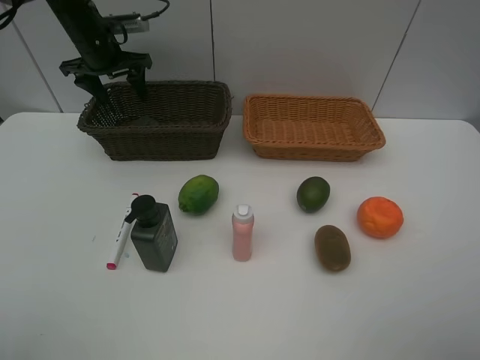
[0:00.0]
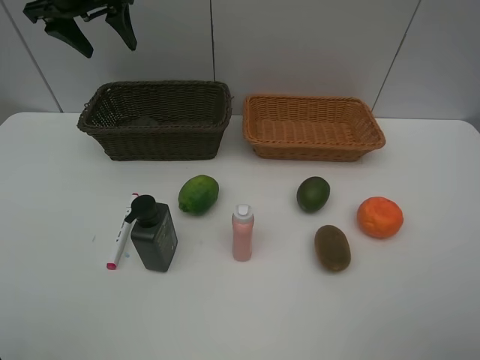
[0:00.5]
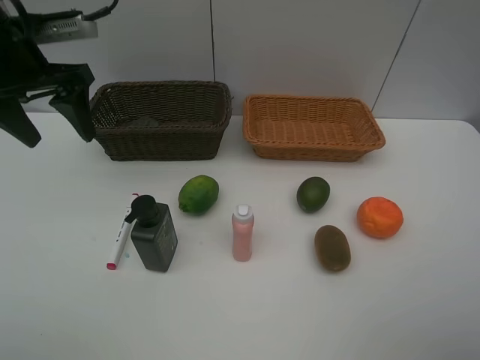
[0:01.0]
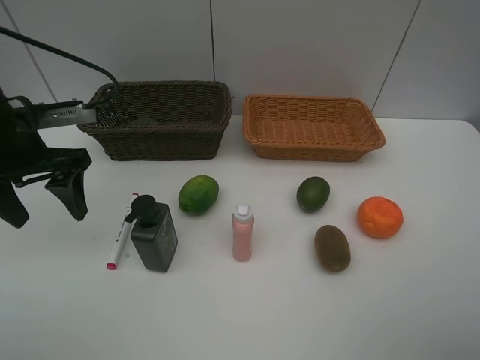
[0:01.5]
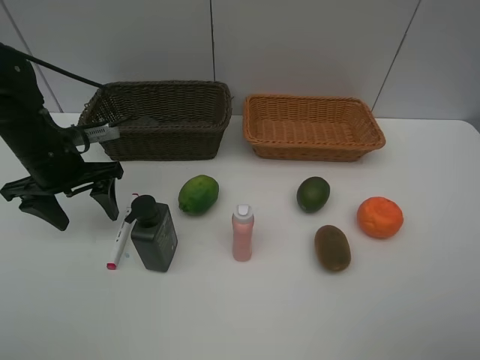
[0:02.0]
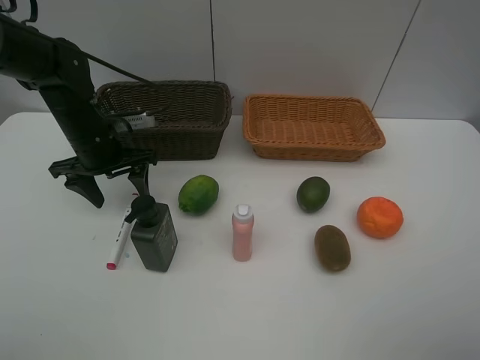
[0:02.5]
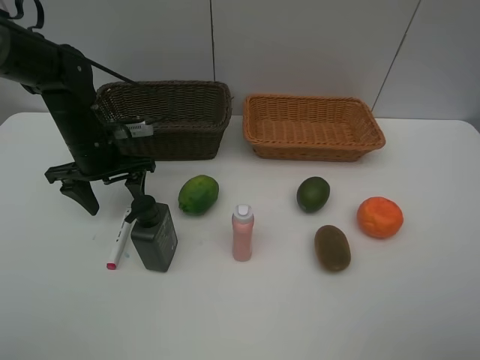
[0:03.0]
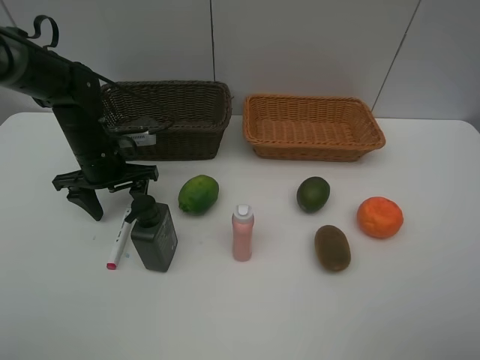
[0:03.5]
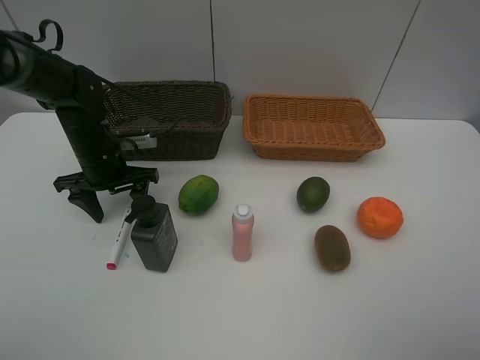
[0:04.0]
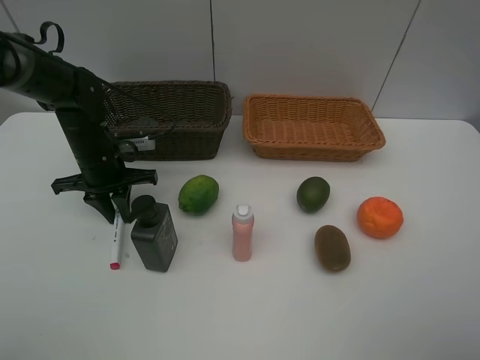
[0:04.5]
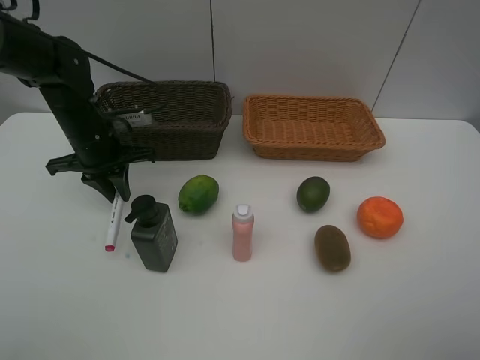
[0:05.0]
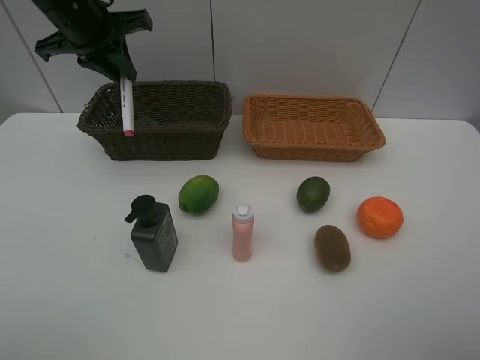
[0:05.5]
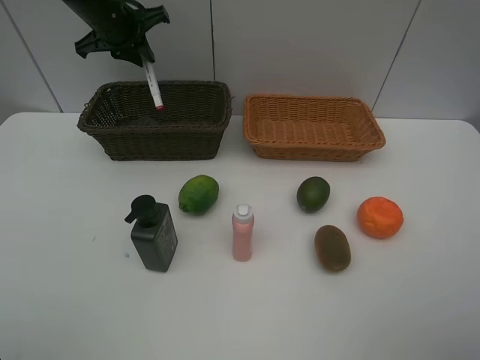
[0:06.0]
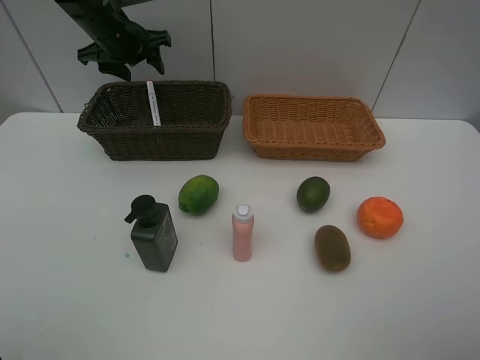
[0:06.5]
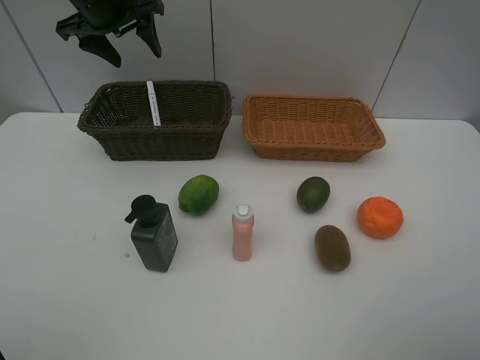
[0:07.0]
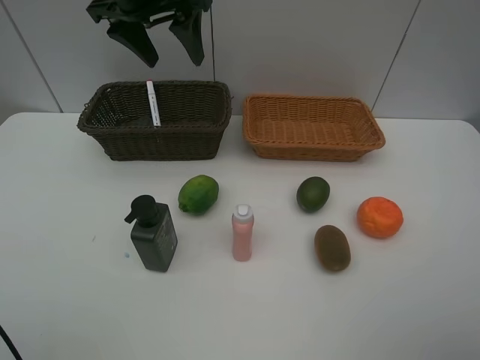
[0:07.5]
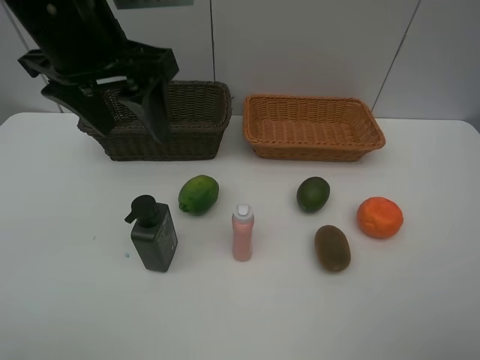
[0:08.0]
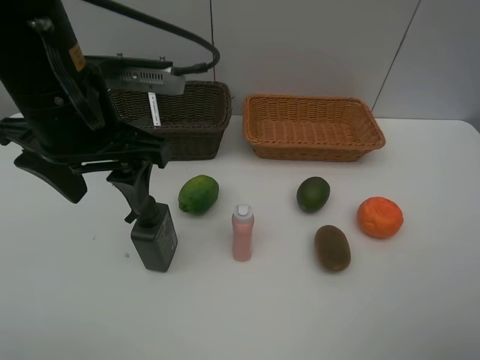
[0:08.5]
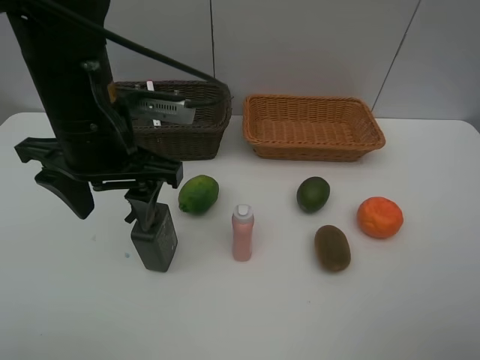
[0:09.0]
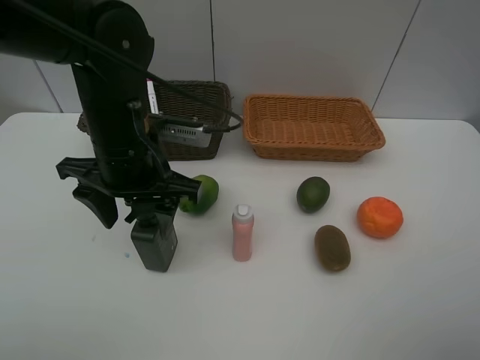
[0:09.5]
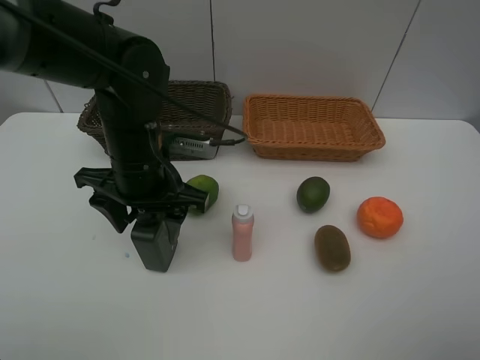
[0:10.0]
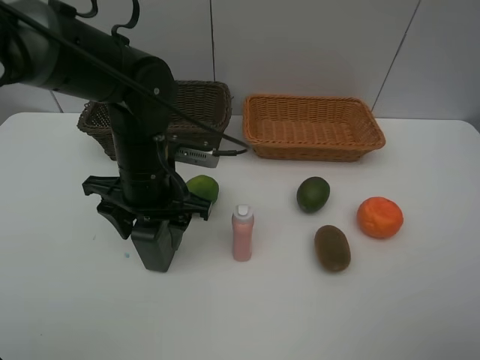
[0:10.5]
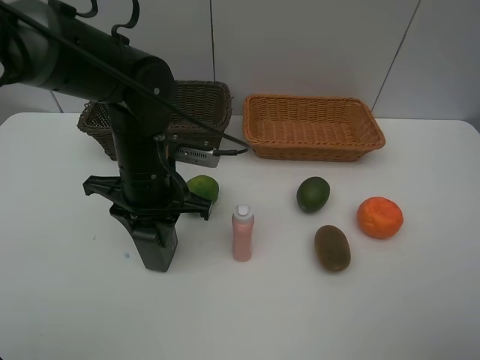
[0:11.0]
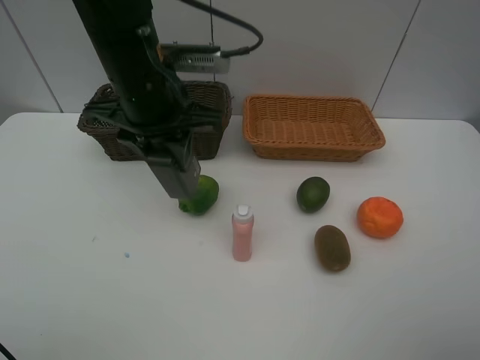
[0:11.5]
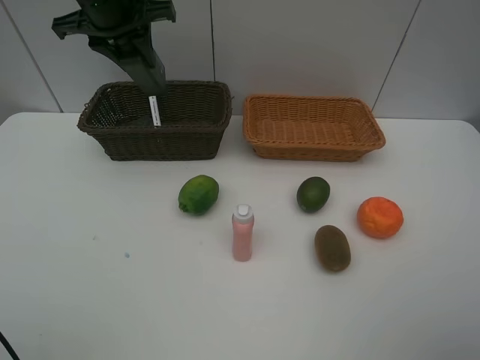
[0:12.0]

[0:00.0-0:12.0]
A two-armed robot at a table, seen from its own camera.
Task of the whole recording: Place multiple objects separately in different baskets.
Step, 0:00.5 to 0:05.0: Pick up pink marker pen with left gripper.
Step, 0:05.5 to 0:06.5: Place the pink marker pen in the dark basket with left gripper.
Step, 0:07.0 to 0:11.0: Pick up the hard facial cleanser with left gripper.
0:00.0 to 0:02.0: The left gripper is displaced backward and downward by roughly 20 cm.
0:02.0 to 0:04.0: The left gripper ends up some 5 cm from where it was.
0:04.0 to 0:06.0: The left gripper shifts about 20 cm upward and forward, and closes.
0:06.0 to 0:08.0: The left gripper moves backward, approximately 25 cm, and opens.
0:08.0 to 0:10.0: The left gripper heads downward, covering roughly 15 cm.
0:10.0 to 0:12.0: The left gripper goes some 20 cm forward, upward and to the left, and closes.

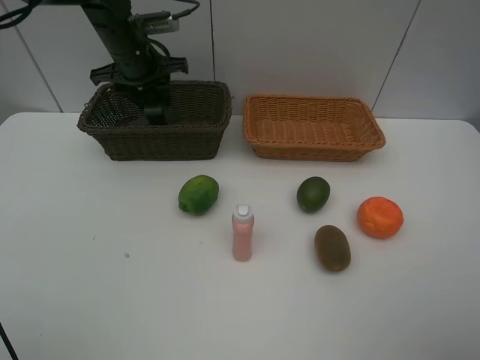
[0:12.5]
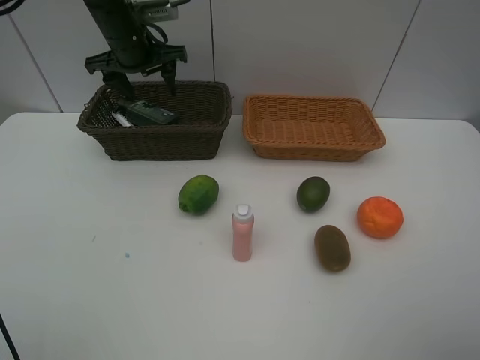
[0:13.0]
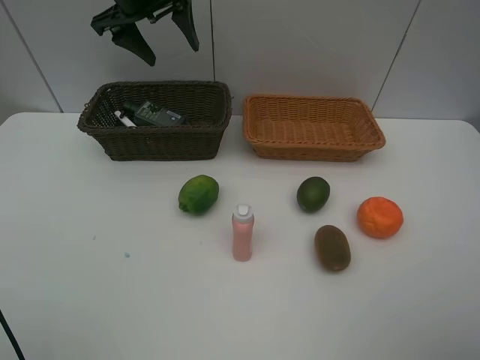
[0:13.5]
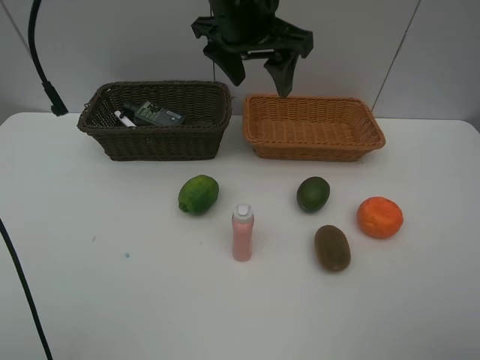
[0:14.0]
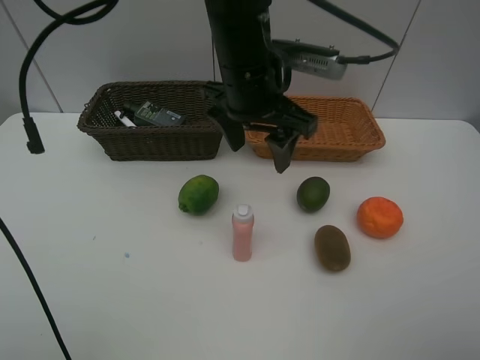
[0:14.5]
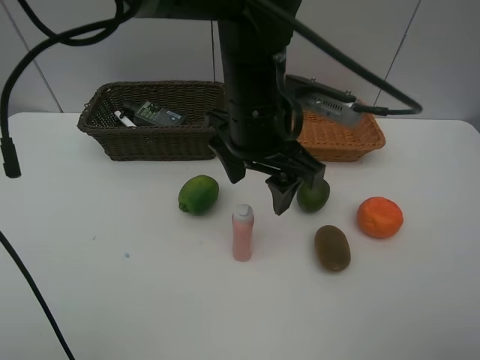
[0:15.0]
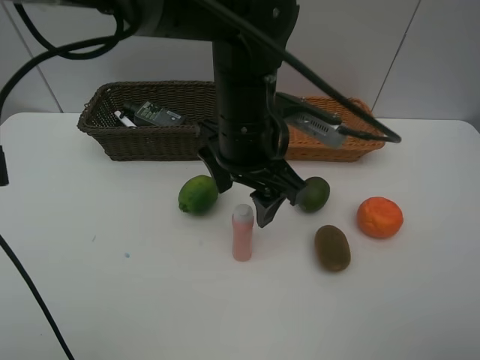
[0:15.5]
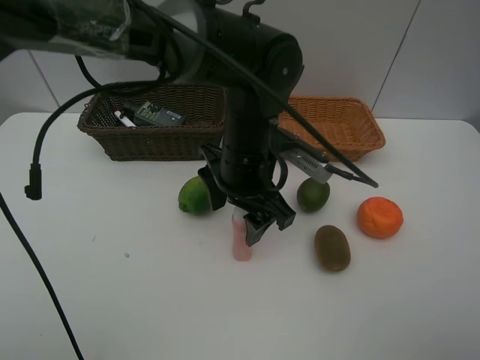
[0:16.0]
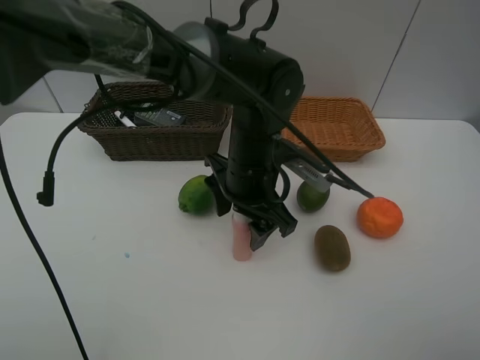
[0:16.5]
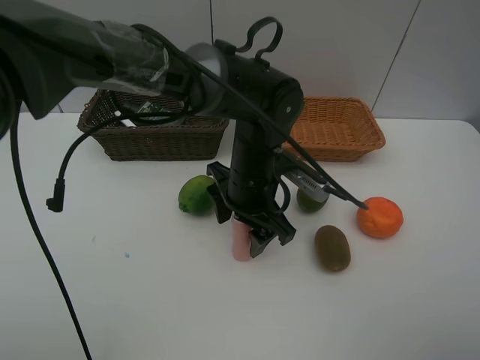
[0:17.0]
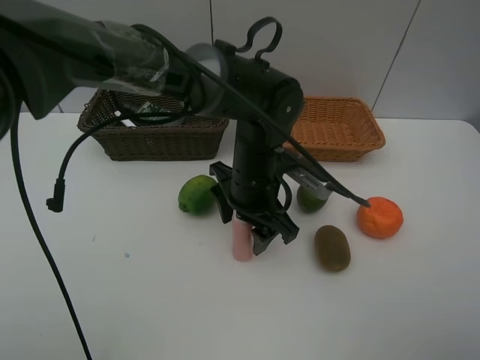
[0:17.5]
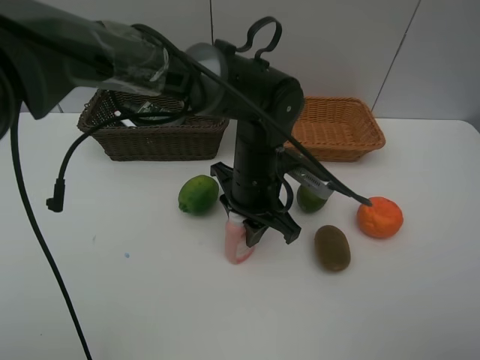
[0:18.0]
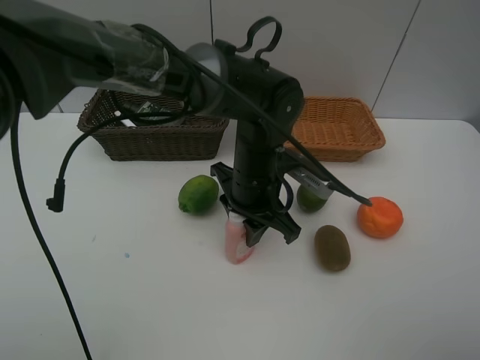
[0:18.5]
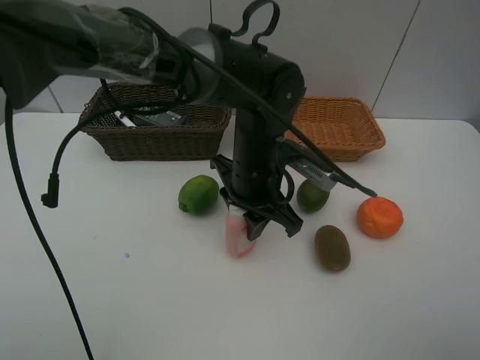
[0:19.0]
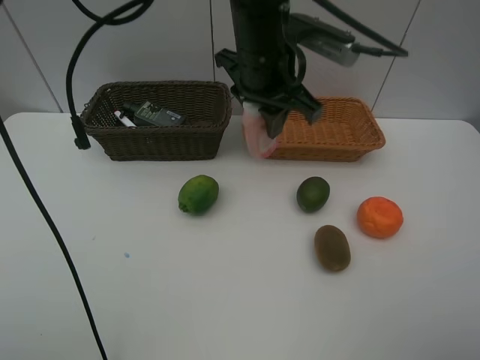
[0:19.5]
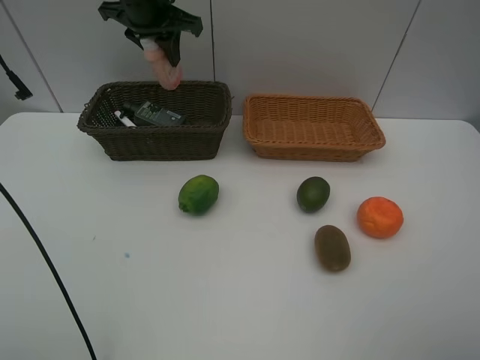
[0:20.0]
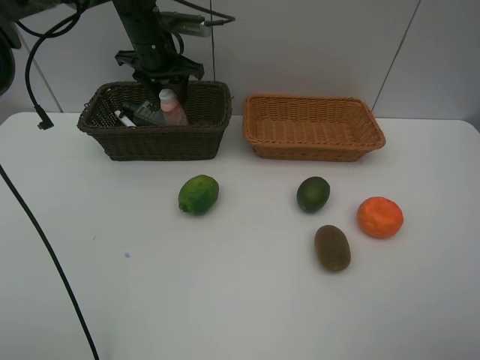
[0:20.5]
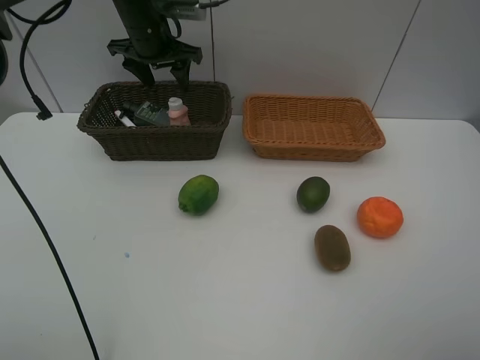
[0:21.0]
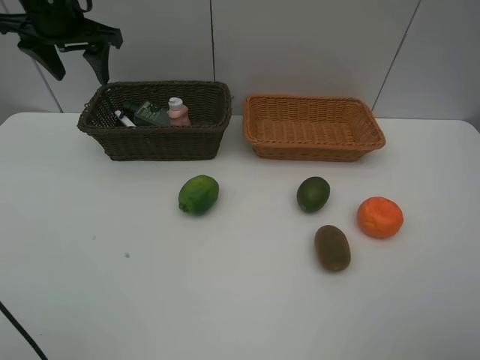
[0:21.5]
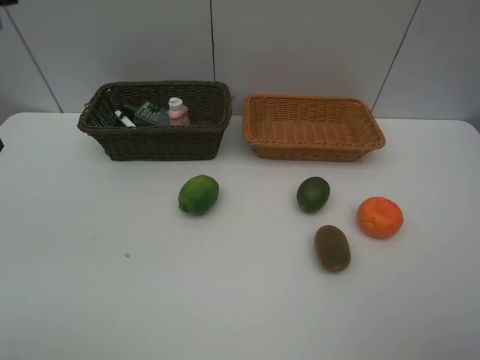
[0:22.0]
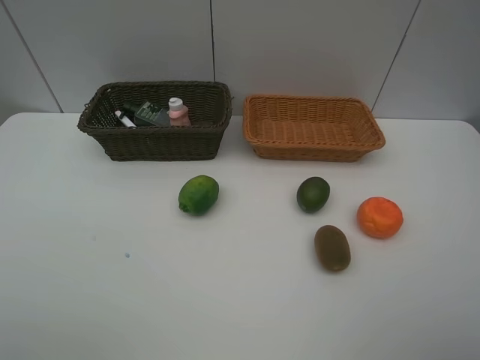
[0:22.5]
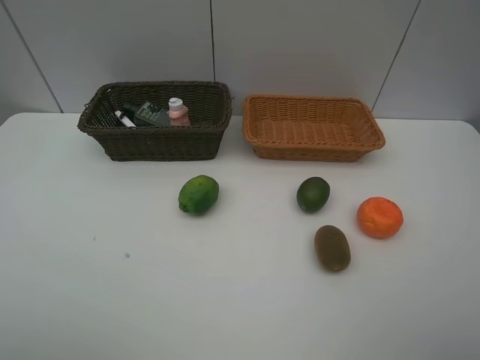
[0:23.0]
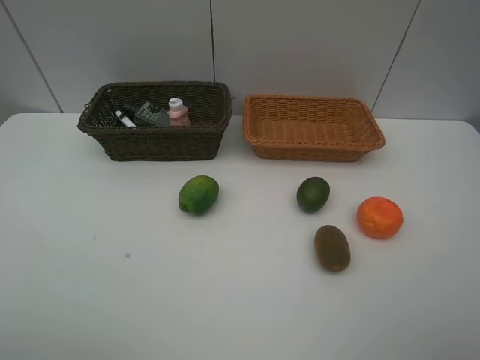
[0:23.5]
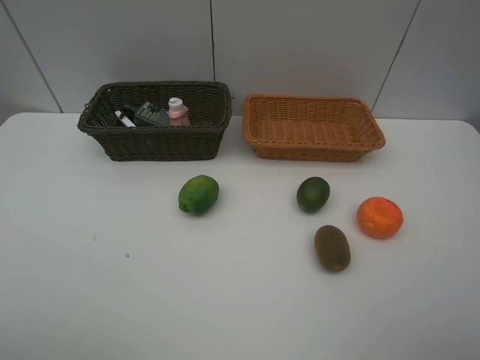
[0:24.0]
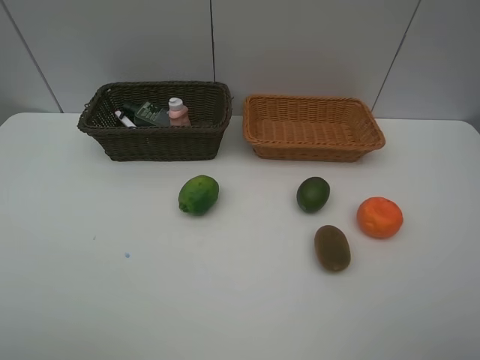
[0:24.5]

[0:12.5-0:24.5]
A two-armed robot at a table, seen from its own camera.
Task of the whole recording: Place multiple objects separately in different baskets.
Step, 0:13.5 to 0:19.0: Pick up the laundry detergent with left gripper.
Step, 0:19.5 to 0:21.0: Place the laundry detergent in the dark basket with left gripper.
0:12.5 to 0:14.5: The left gripper is displaced to the right and backward by approximately 25 cm.
0:14.5 to 0:16.5: The left gripper goes roughly 10 cm downward.
0:16.5 to 0:18.5: The left gripper closes.
0:18.5 to 0:20.5: The left gripper shifts roughly 30 cm forward and to the left, and opens up.
0:20.5 to 0:22.5: The left gripper heads backward, covering approximately 40 cm.

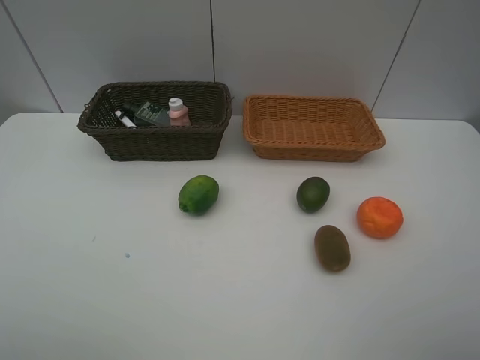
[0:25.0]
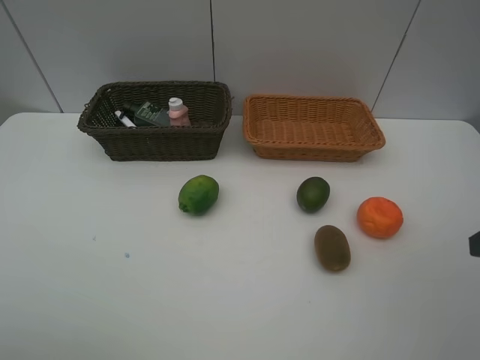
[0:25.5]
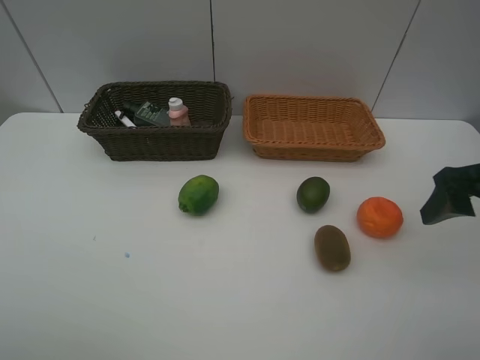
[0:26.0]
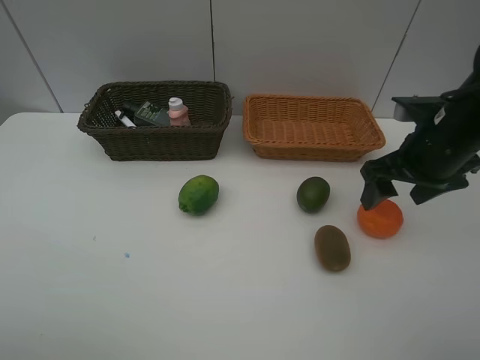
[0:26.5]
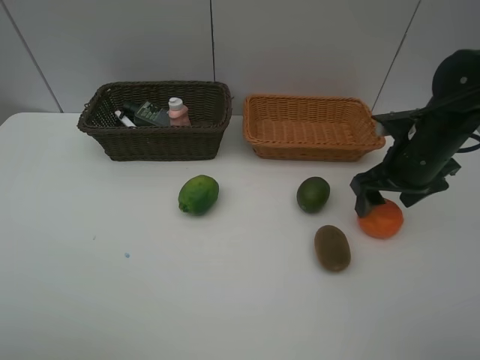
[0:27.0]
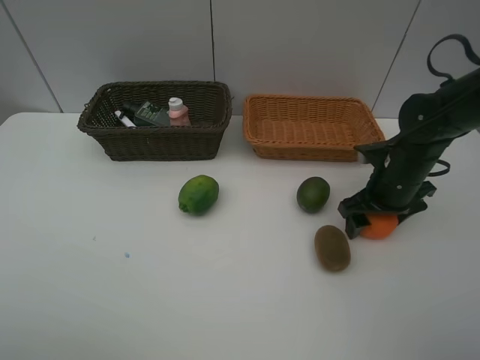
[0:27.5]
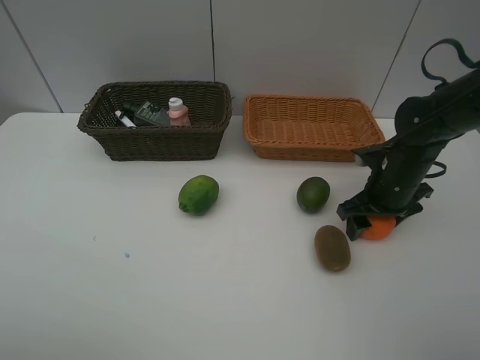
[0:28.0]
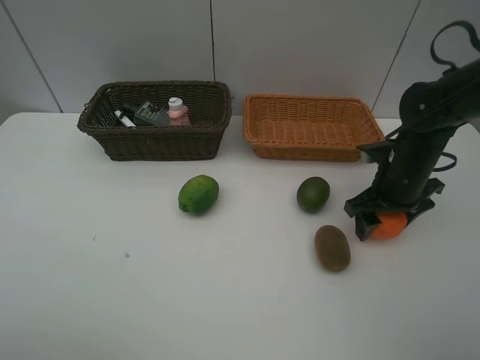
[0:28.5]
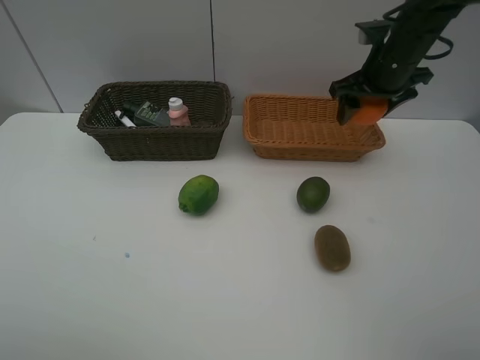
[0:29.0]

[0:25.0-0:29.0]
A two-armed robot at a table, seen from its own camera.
Task of the whole recording: Place multiple objects separately in different baskets.
Step, 0:25.0 to 0:28.5: Pick up the orange with right gripper.
0:25.0 to 0:27.0: The right gripper is displaced forward and downward by some 30 cm.
0:27.0 to 0:29.0: The right gripper moves forward and upward, approximately 15 cm.
